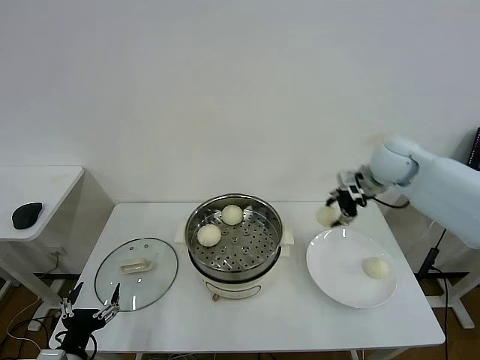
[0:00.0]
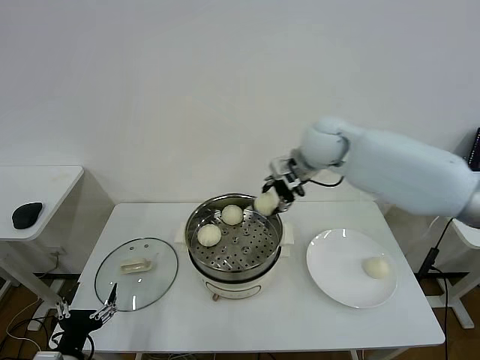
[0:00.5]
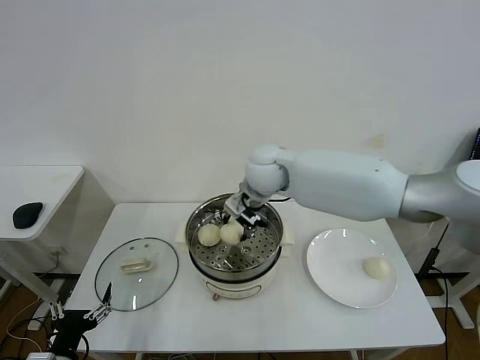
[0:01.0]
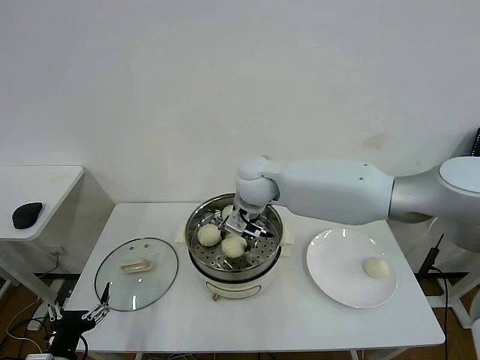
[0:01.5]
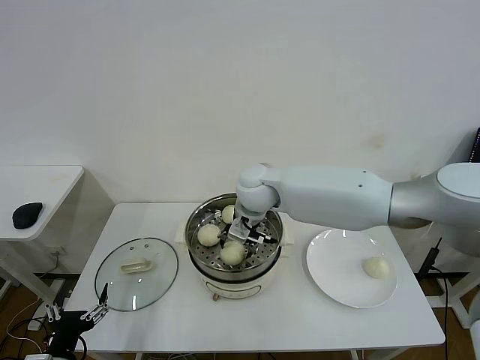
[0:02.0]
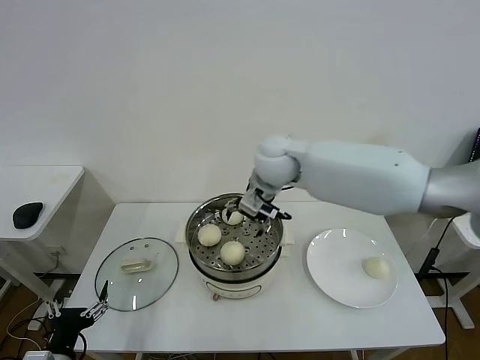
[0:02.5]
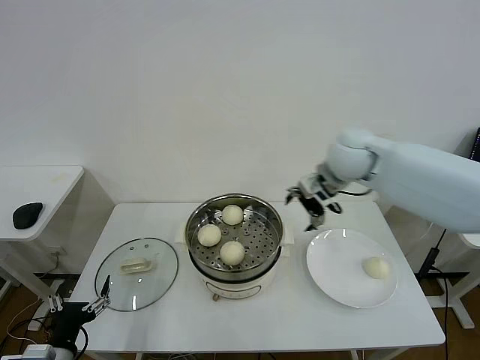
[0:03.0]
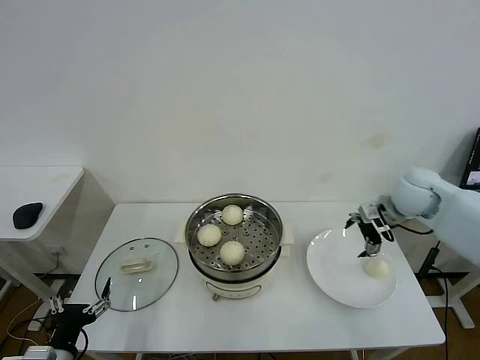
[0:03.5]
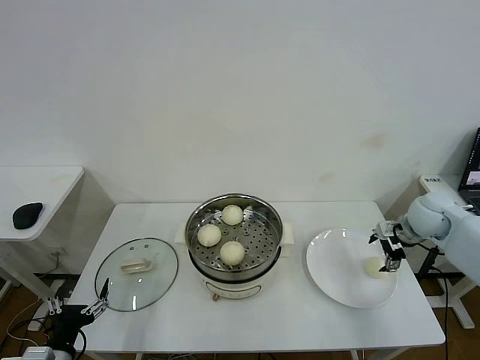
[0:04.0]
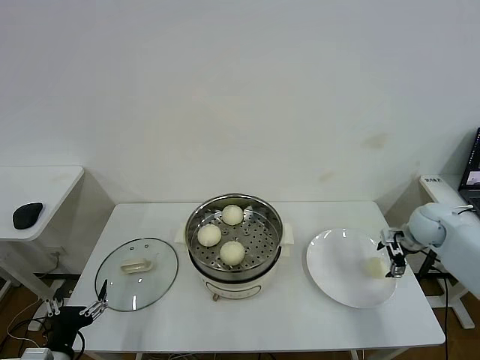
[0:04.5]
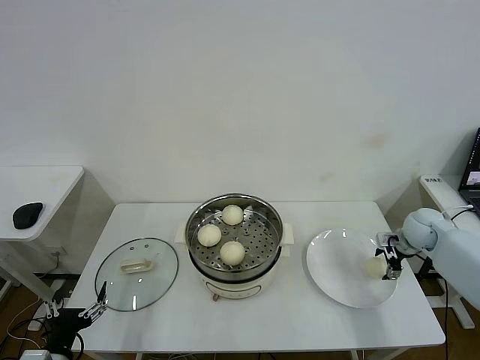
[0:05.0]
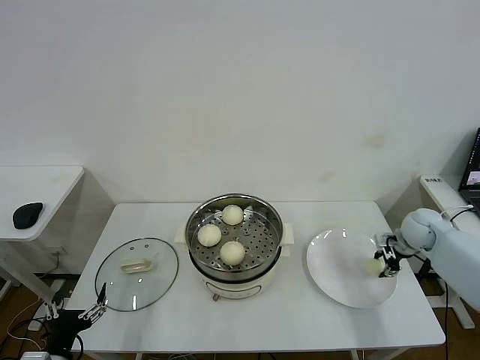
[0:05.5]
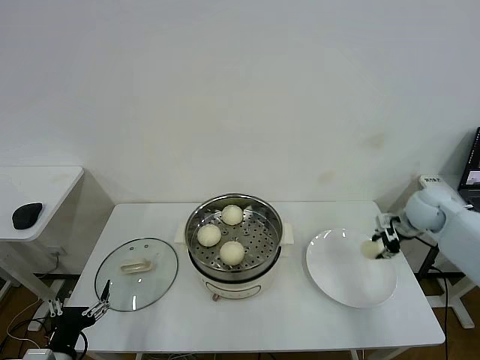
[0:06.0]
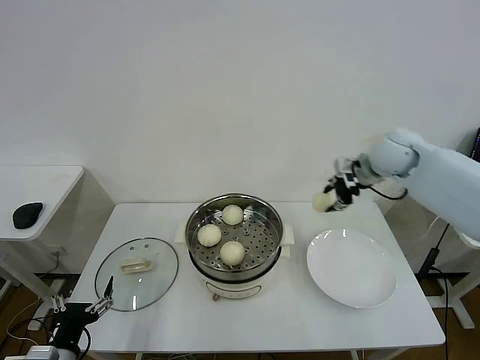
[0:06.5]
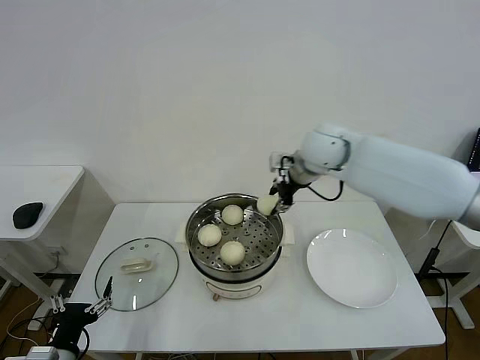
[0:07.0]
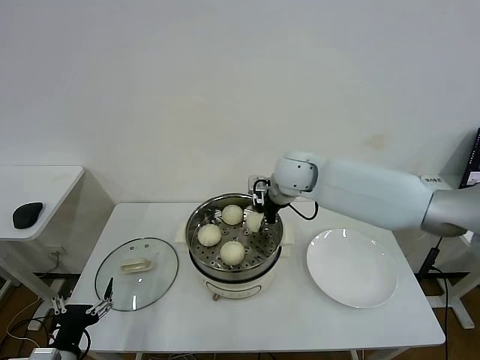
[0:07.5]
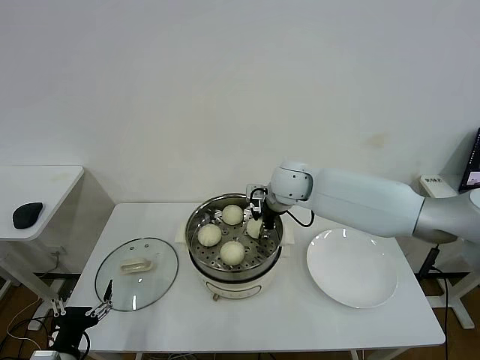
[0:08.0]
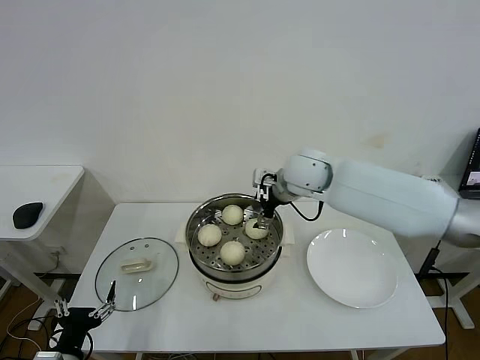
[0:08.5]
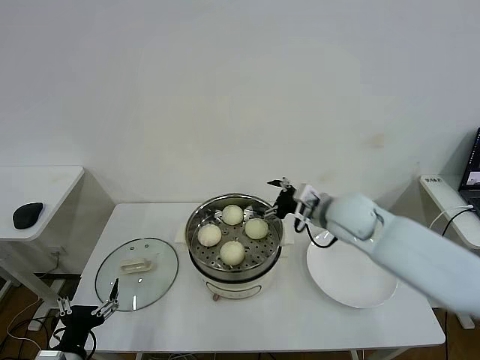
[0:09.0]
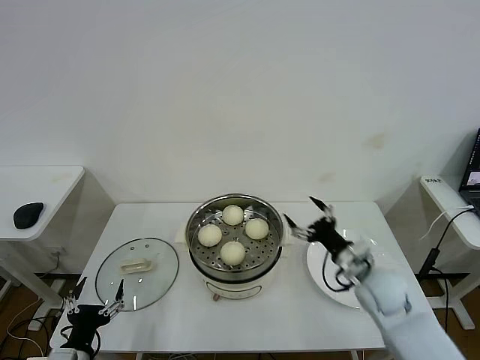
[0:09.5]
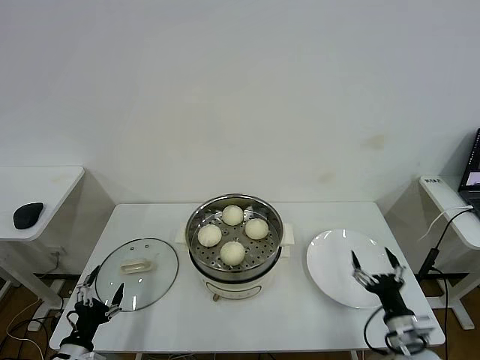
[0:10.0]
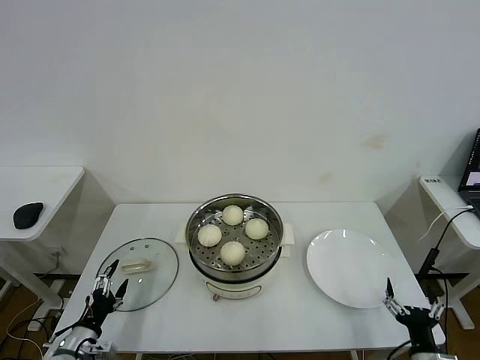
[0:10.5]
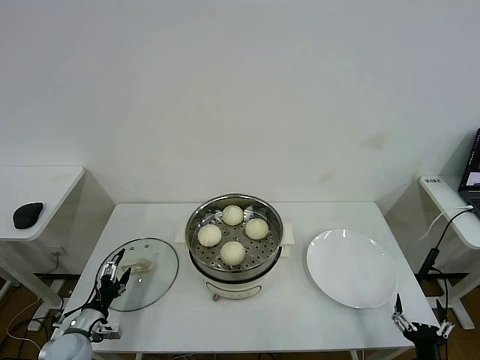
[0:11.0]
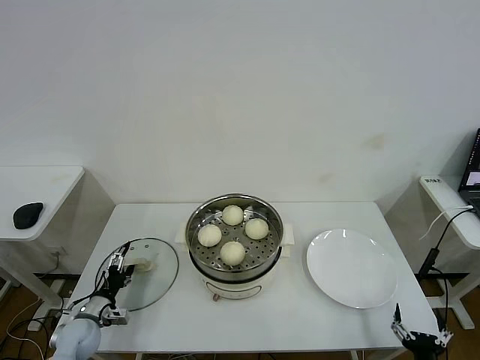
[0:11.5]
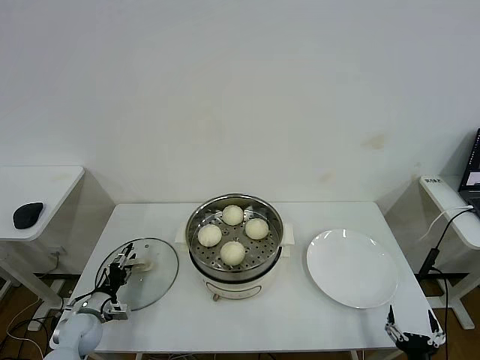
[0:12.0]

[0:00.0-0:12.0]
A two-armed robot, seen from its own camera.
Step, 0.0 to 1.5 s: Place the baozi on the steamer with right gripper.
Step, 2.0 to 5.5 s: Grasp the baozi in the plate with right gripper.
Step, 6.0 to 8.0 s: Place the baozi on the steamer with right gripper.
0.0 to 2.0 s: The right gripper goes approximately 25 cm to the left, and opens.
2.0 to 4.0 s: The right gripper shifts some 40 cm to the right.
4.0 to 6.0 s: The right gripper closes up.
6.0 to 8.0 s: The right gripper goes about 30 cm to the left, and opens up.
8.0 to 10.0 s: The right gripper travels backward, to the right and downward by about 50 cm, and opens its fingers.
10.0 to 12.0 s: The left gripper travels forward and downward by approximately 15 cm, and closes. Meanwhile the right gripper heads backward and downward, covering about 15 cm.

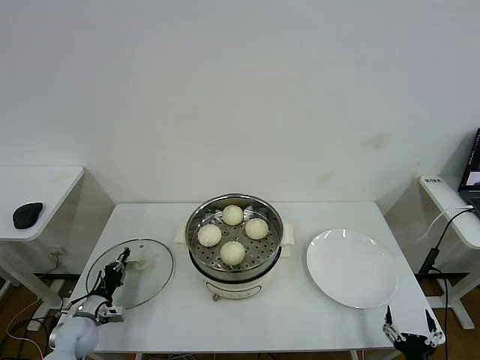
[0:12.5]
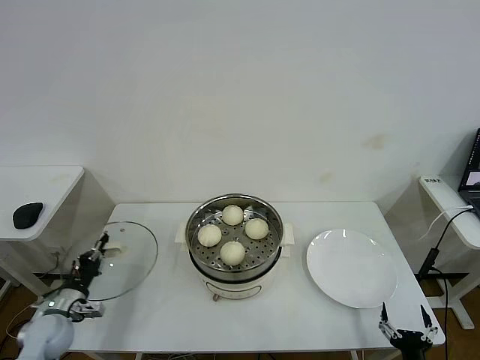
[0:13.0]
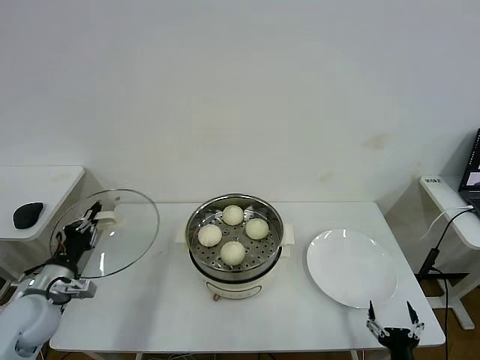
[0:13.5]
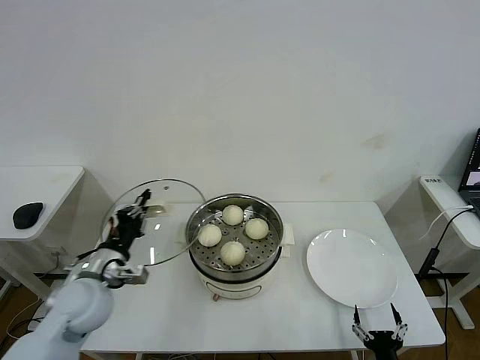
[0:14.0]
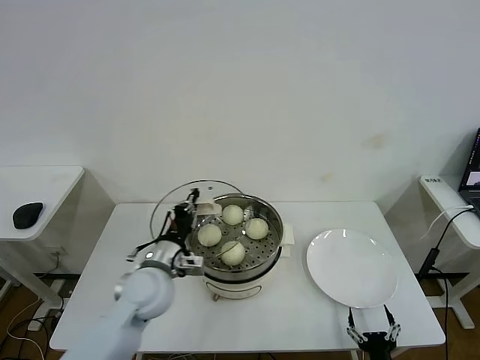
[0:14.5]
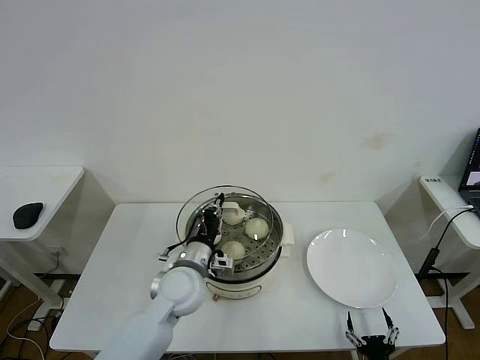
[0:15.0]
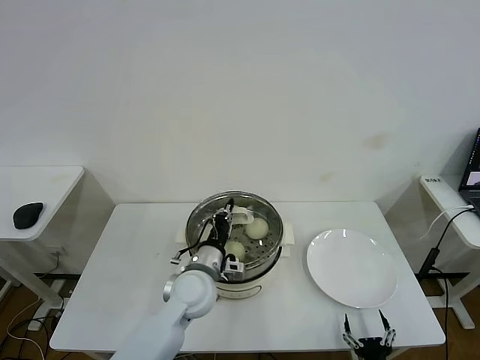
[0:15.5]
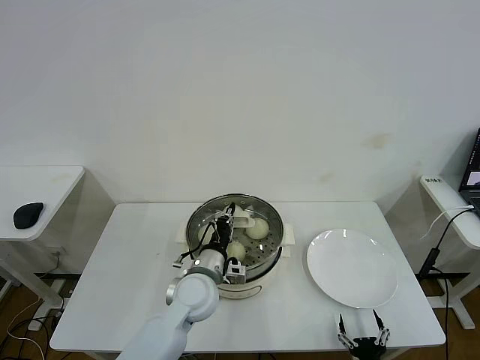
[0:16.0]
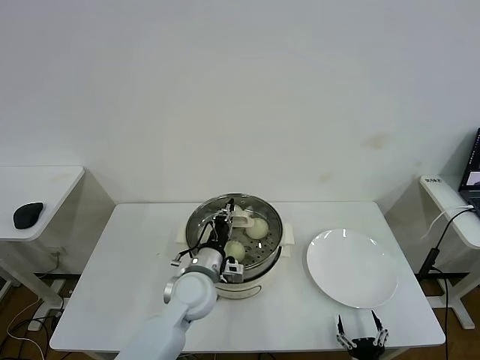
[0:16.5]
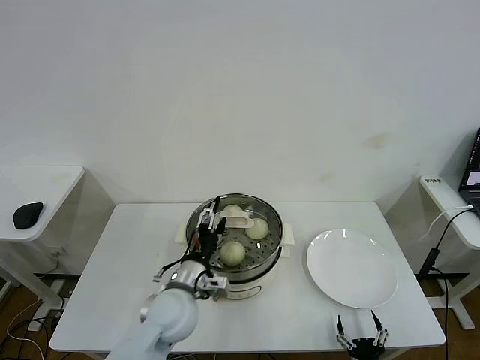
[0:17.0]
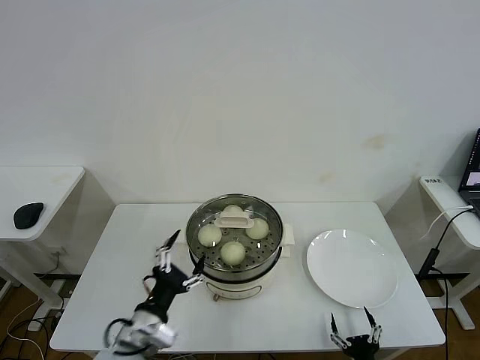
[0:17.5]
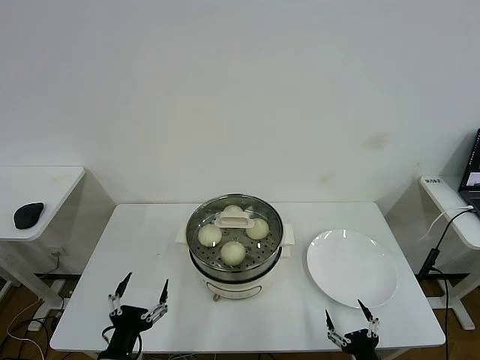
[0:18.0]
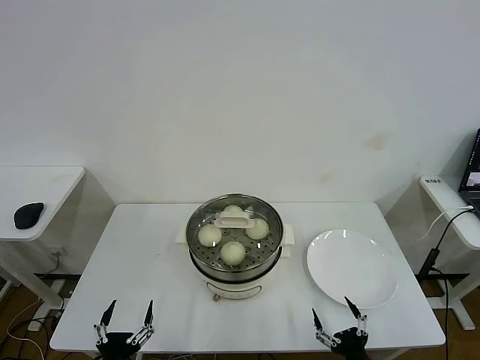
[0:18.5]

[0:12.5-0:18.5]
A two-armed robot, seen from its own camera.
Step, 13.0 to 16.5 s: Place the pot lid on the steamer with left gripper.
12.5 to 14.5 s: The left gripper travels to the right and upward by about 30 cm, while the right gripper goes approximately 5 cm to the left.
14.5 to 16.5 s: The left gripper moves to the right, about 10 cm.
16.5 to 18.5 s: The left gripper shifts some 30 cm backward and to the left, and opens its fingers; the right gripper is displaced upward by some 10 cm.

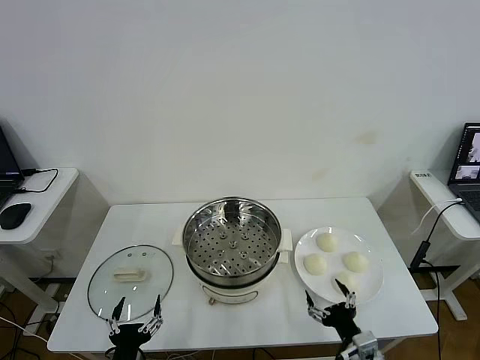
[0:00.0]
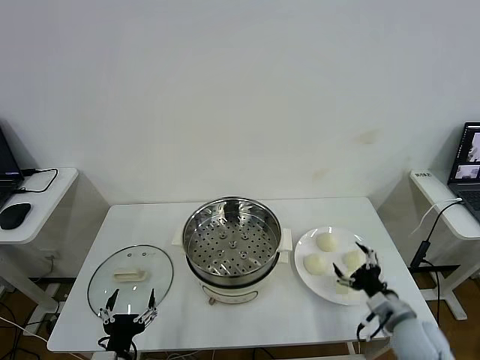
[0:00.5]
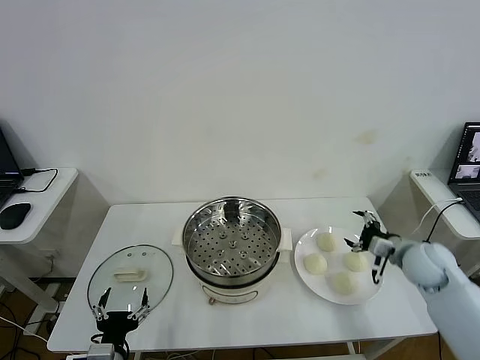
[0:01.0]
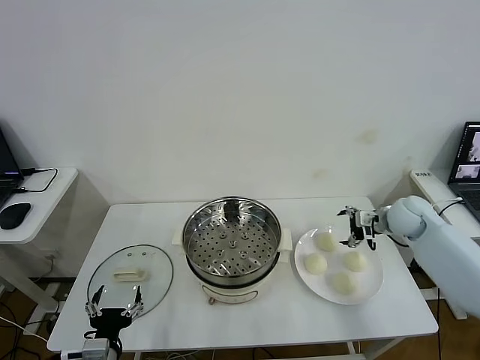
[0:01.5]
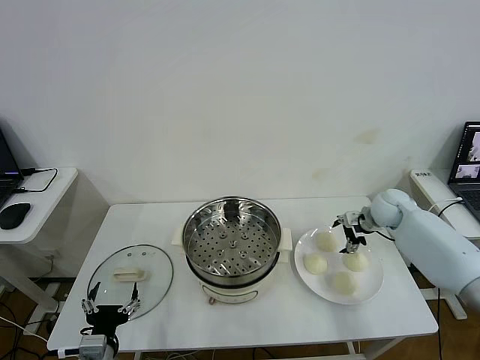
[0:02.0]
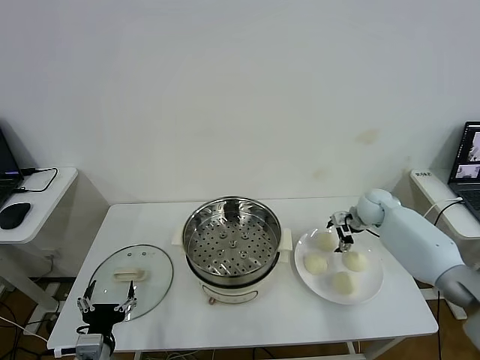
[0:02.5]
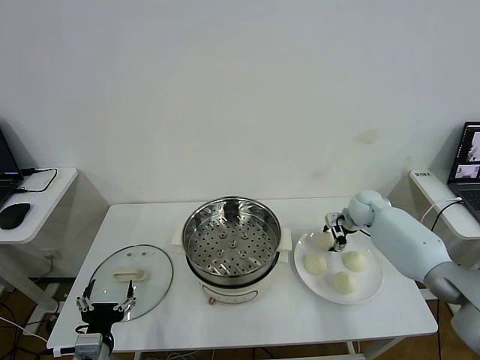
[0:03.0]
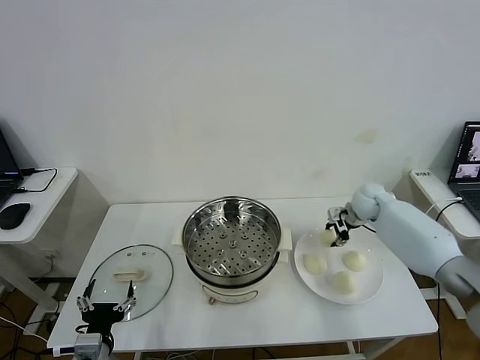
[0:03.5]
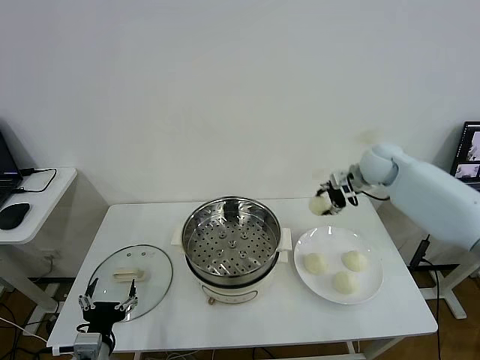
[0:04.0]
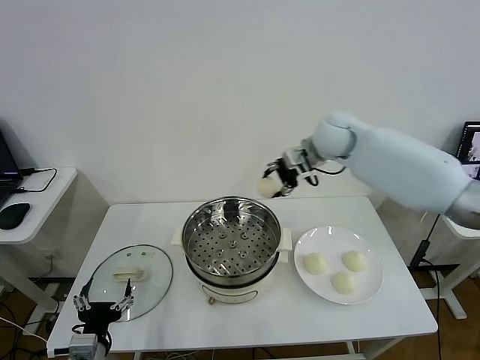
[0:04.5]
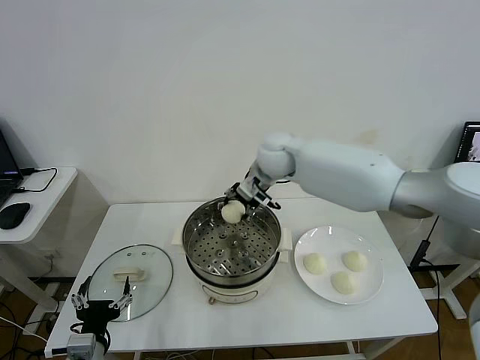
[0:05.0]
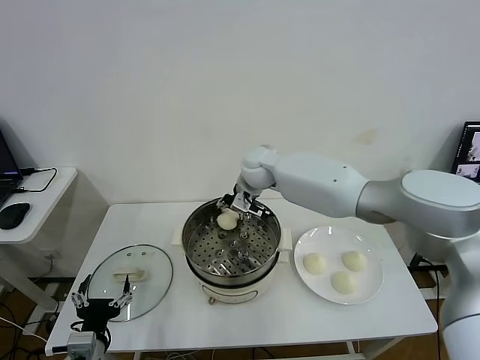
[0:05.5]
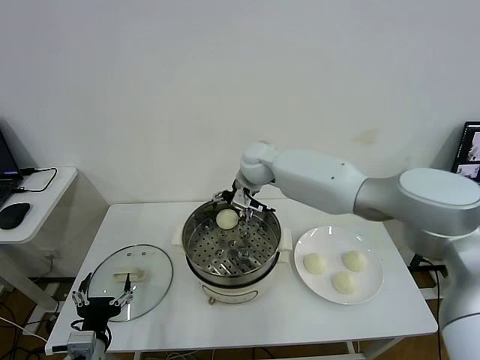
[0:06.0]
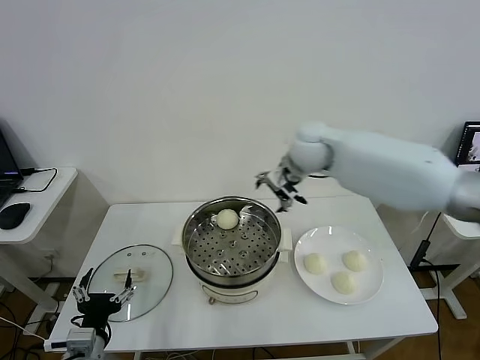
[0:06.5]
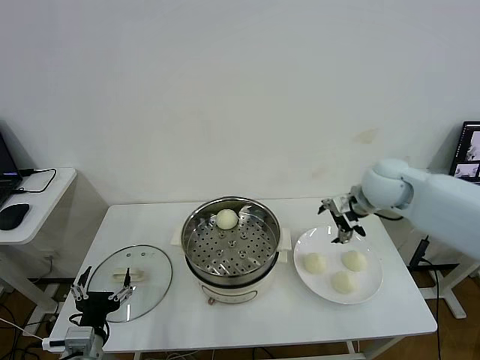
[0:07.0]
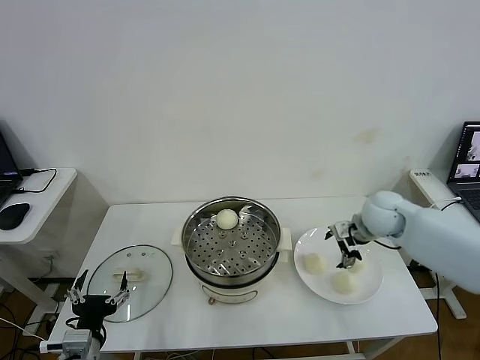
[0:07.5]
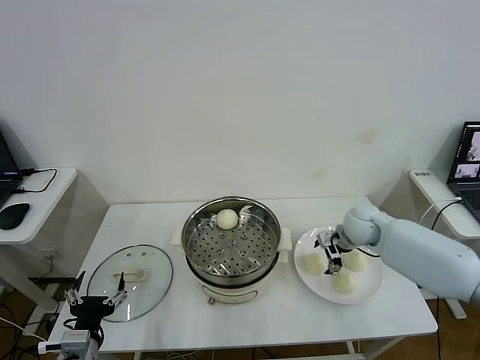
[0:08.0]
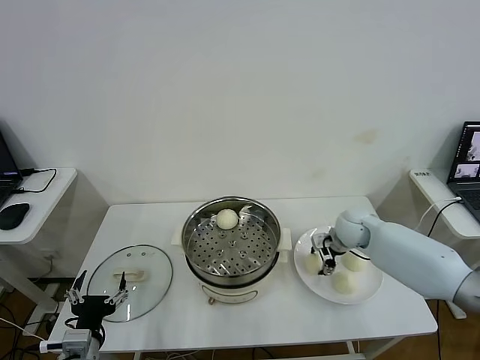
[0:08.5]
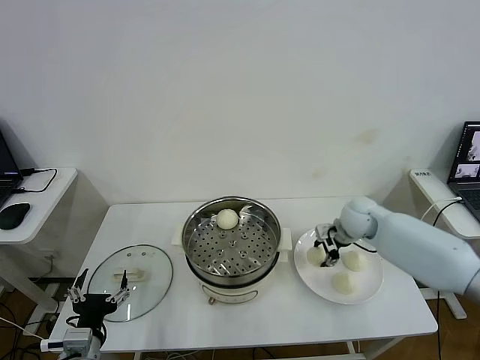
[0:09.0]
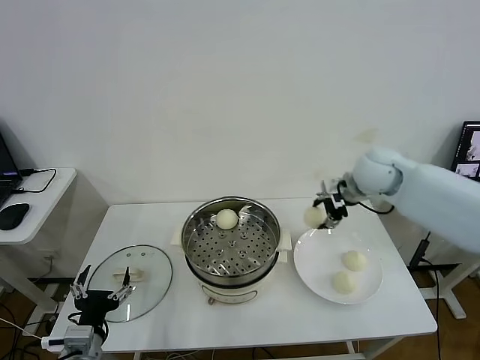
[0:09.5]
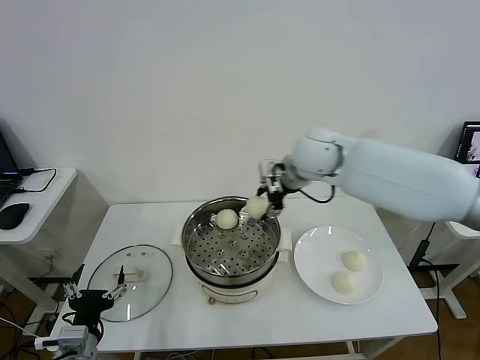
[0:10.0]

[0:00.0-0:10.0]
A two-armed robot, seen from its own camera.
Step, 0.0 to 2.5 s: Grasp the baozi in the plate with right gripper.
Step, 3.5 to 5.5 s: Place the baozi on the steamer with right gripper.
Step, 6.0 to 8.5 s: Grasp the baozi in the plate with right gripper.
2.0 to 4.0 s: The right gripper moves upward and to the left, roughly 20 cm, and closes its fingers.
4.0 to 6.0 s: The right gripper shifts some 25 cm to the left, and opens up.
6.0 to 8.0 s: The right gripper heads to the right and downward, covering some 30 cm.
8.0 to 10.0 s: The right gripper moves upward and to the left, some 30 cm, and closes.
